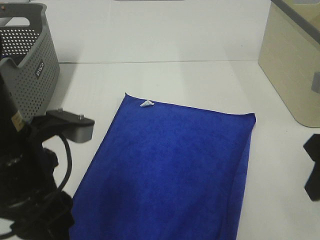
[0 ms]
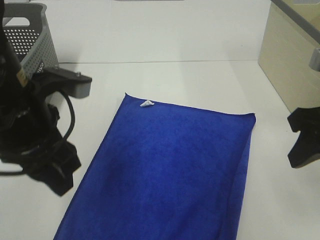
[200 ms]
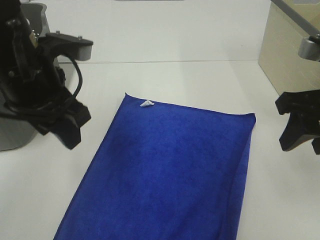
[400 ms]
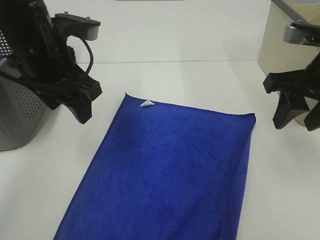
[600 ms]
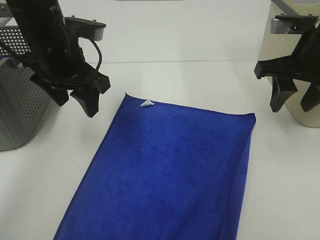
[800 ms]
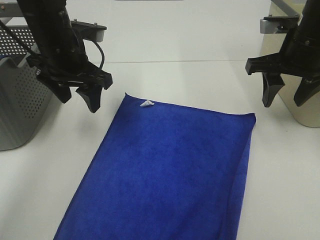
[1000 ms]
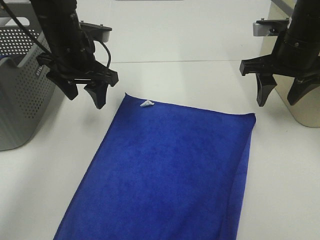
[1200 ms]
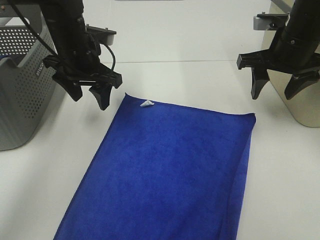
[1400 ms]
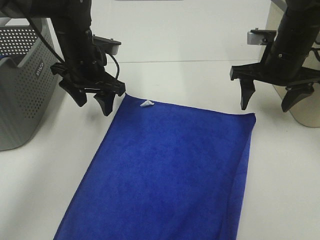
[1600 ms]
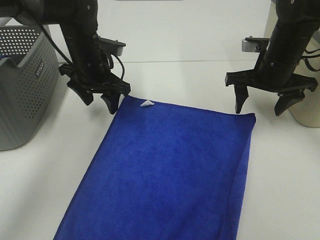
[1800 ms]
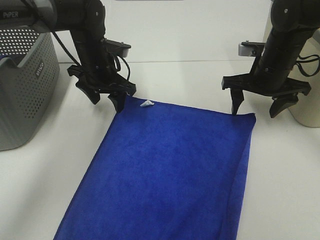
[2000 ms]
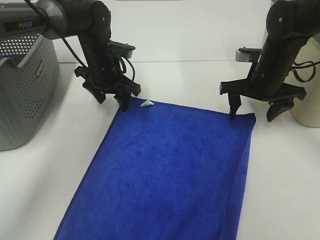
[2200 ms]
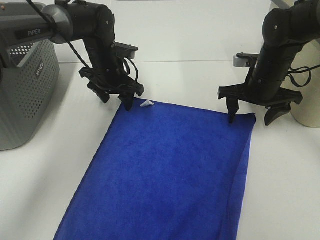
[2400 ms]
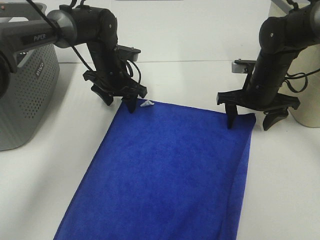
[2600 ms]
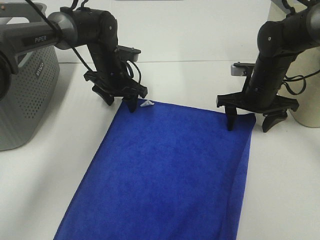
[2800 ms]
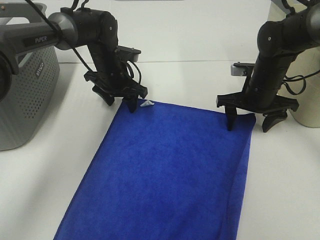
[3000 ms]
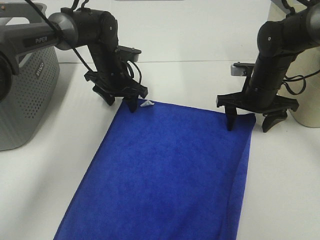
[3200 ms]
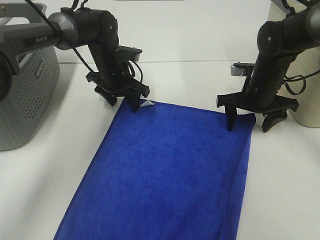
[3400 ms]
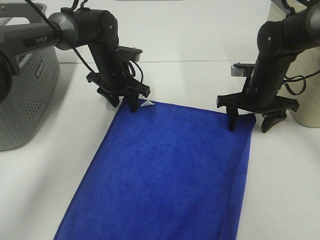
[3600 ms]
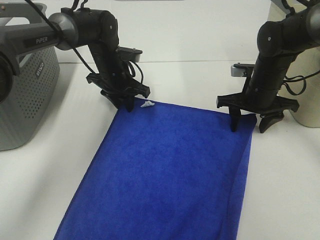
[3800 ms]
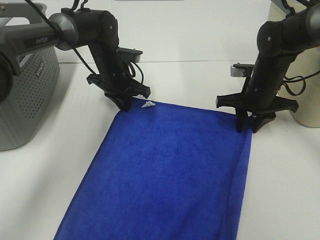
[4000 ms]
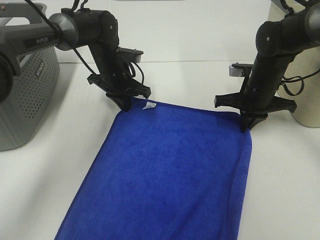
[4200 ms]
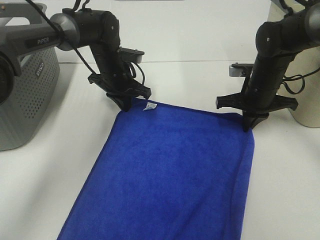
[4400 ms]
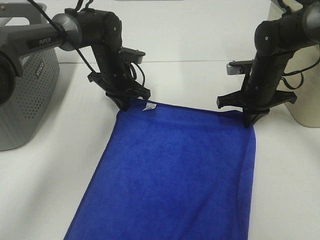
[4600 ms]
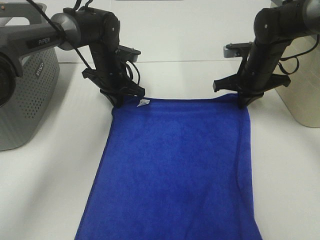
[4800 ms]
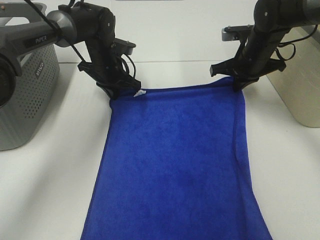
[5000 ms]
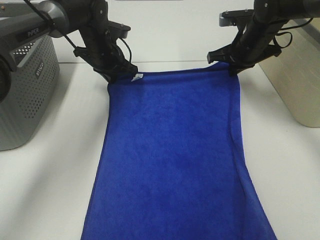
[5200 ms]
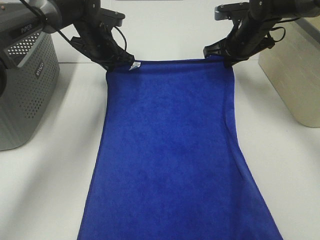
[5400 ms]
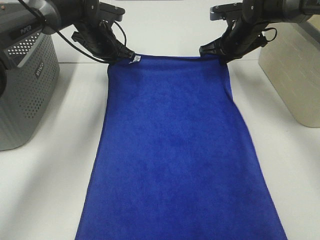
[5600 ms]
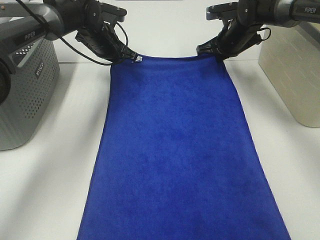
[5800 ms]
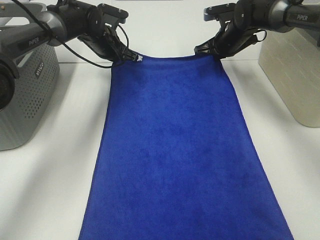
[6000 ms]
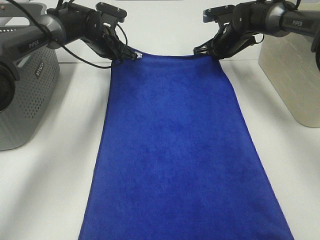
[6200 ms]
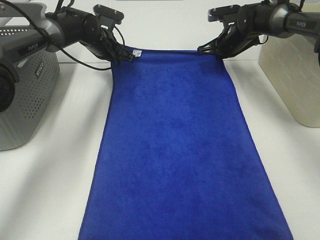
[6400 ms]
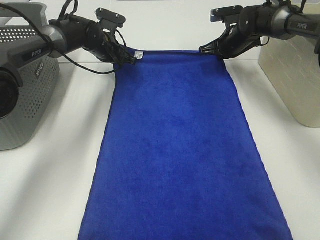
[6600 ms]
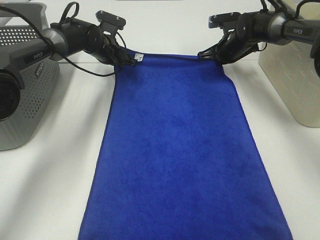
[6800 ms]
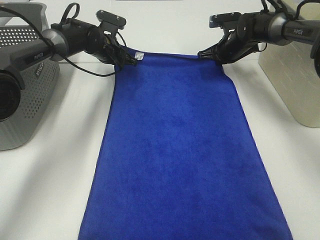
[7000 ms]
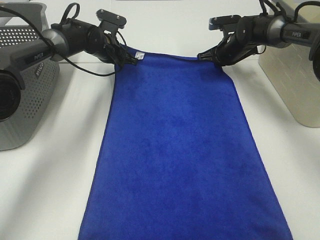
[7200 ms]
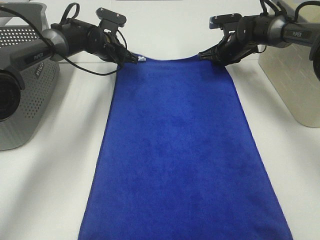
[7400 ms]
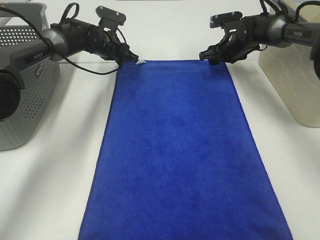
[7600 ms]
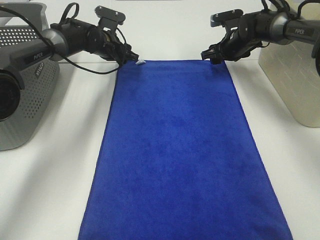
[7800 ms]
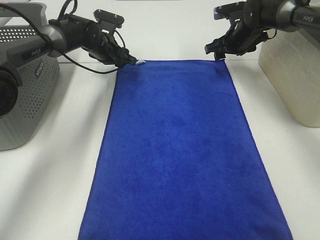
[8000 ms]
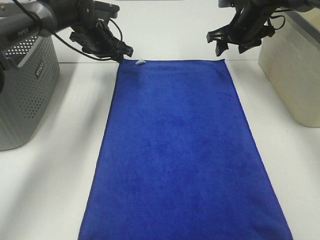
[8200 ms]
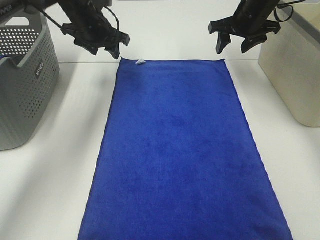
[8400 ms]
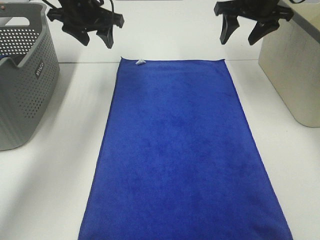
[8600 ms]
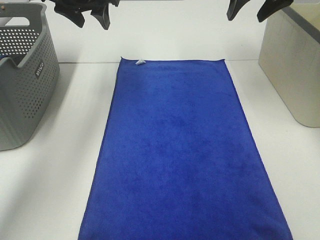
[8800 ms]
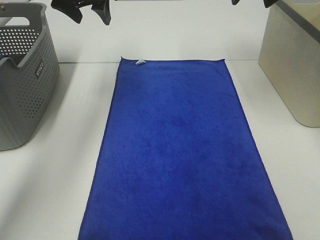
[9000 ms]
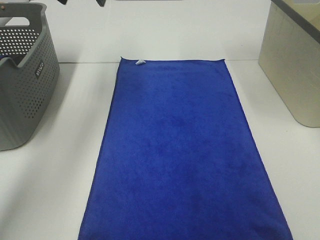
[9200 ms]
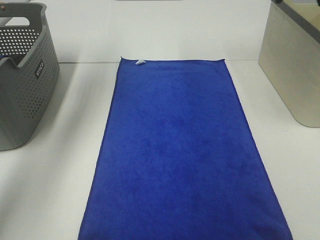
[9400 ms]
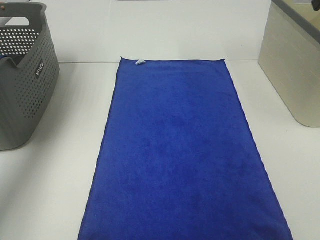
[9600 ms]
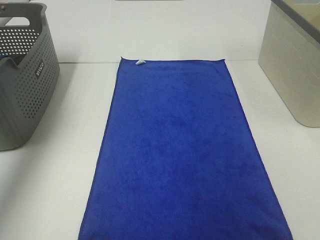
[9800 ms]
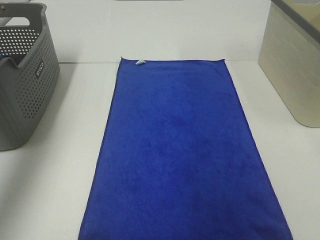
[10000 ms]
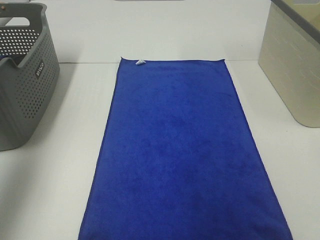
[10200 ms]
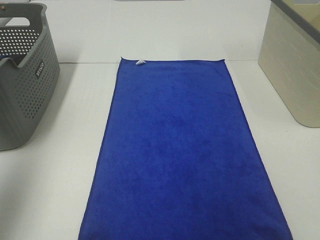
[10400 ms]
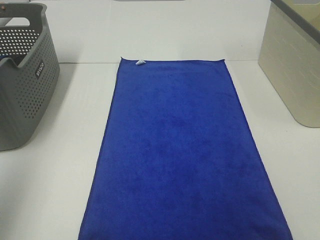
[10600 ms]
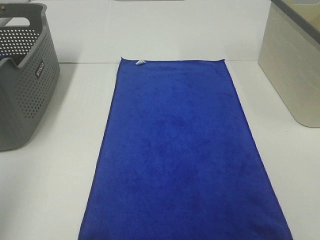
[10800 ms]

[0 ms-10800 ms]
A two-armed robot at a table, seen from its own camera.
Task of the whole recording: Remove the towel and place it.
0 ms to 1600 ms: Both grippers travel together forward, approximately 25 cm.
1600 ms to 3000 ms: The right gripper goes roughly 10 cm downward. The left gripper shifts approximately 10 cm downward and forward.
3000 ms to 4600 ms: The left gripper closes its fingers. Meanwhile the right gripper closes up.
4600 ms to 6200 ms: The left gripper shifts approximately 10 cm forward; the right gripper goes about 15 cm forward.
6200 ms to 7800 ms: The left gripper opens. The right gripper opens.
7800 ms to 9200 ms: The grippers both shift upward and backward by approximately 25 cm.
9200 ms to 10800 ms: The two grippers go roughly 35 cm backward.

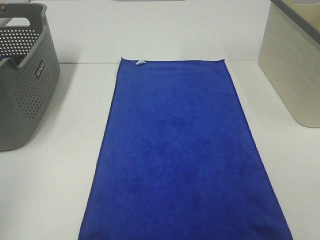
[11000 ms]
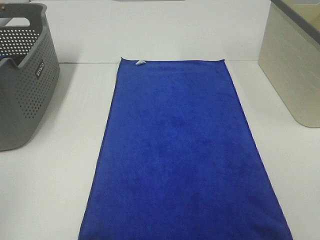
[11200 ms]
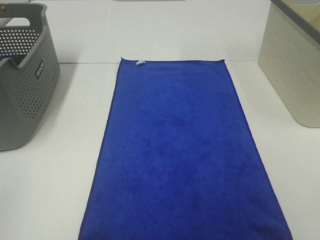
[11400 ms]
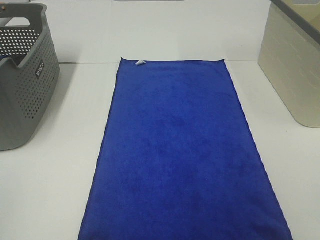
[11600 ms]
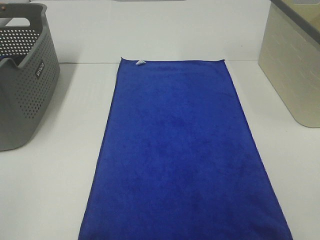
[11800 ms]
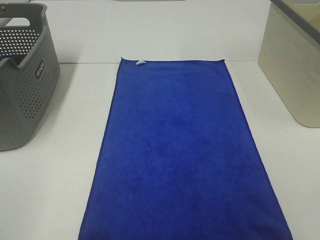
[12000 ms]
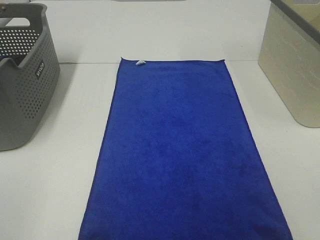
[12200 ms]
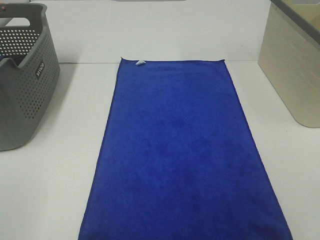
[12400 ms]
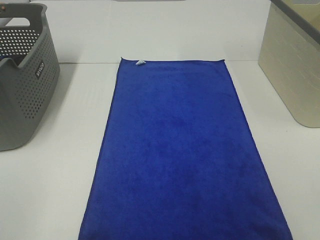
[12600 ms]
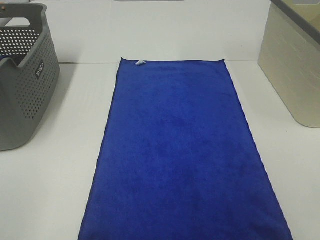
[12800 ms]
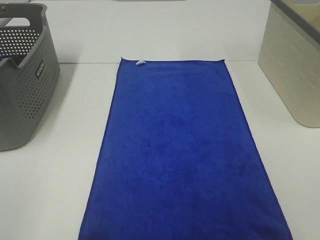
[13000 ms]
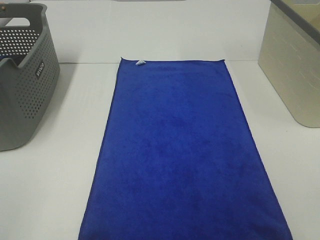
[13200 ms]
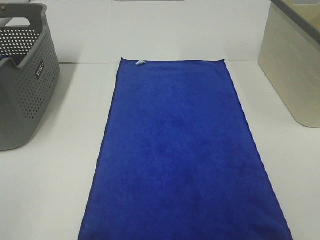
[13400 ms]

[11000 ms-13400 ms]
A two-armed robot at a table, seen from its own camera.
Task of the whole recording: Remove the towel and place it.
12200 ms to 13400 ms: Both grippers stay put.

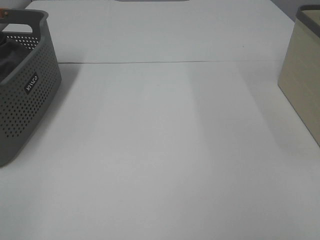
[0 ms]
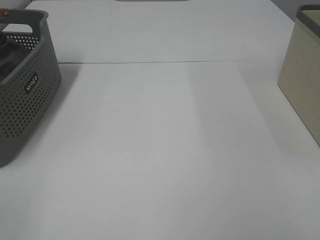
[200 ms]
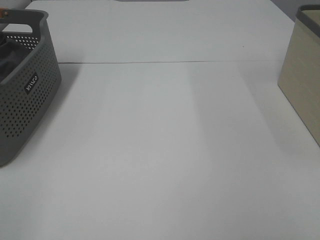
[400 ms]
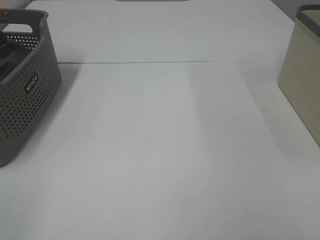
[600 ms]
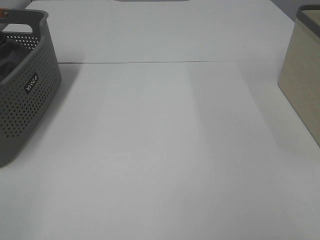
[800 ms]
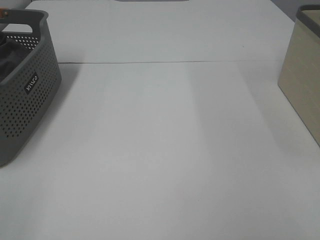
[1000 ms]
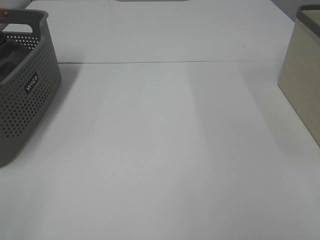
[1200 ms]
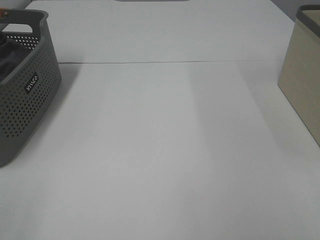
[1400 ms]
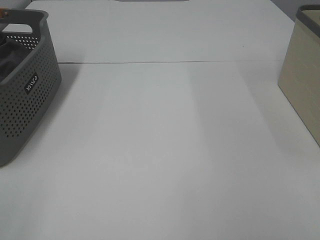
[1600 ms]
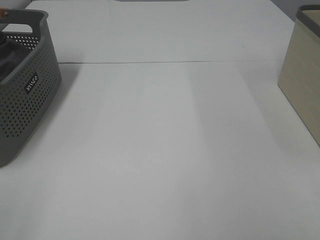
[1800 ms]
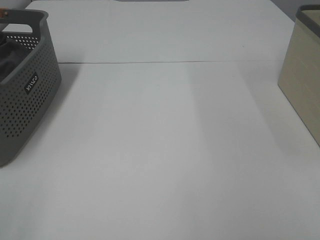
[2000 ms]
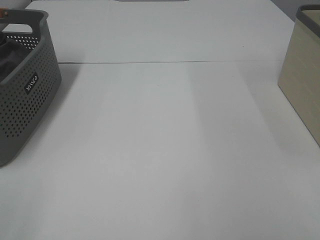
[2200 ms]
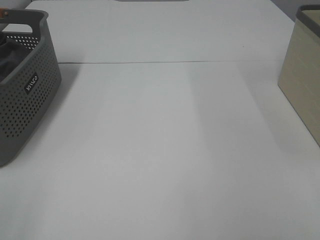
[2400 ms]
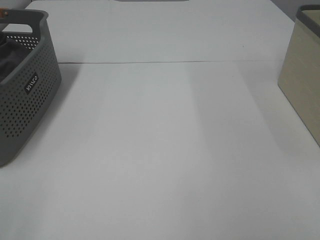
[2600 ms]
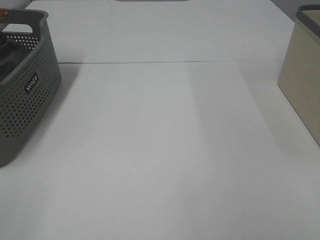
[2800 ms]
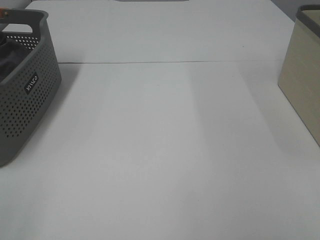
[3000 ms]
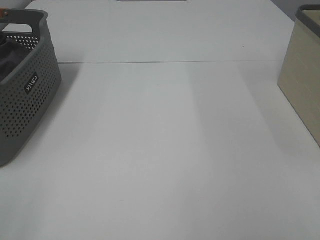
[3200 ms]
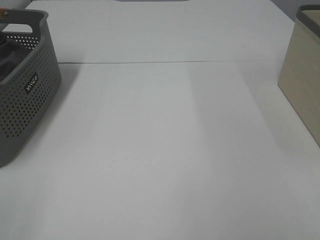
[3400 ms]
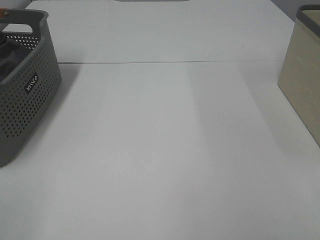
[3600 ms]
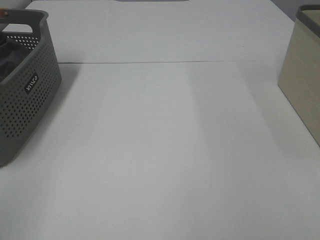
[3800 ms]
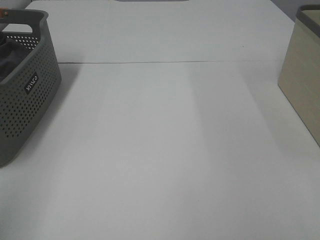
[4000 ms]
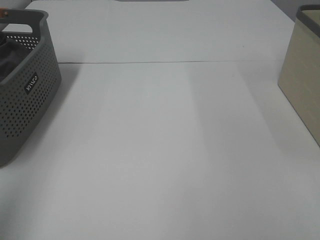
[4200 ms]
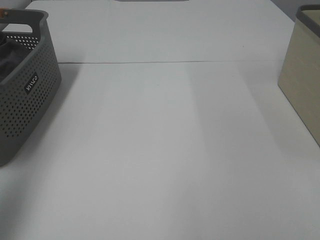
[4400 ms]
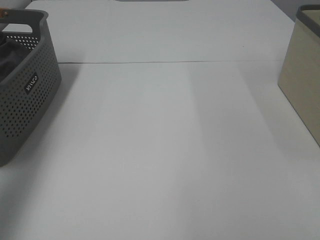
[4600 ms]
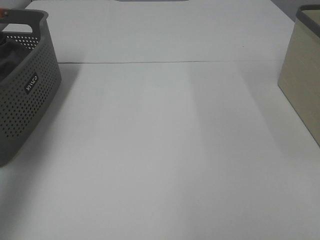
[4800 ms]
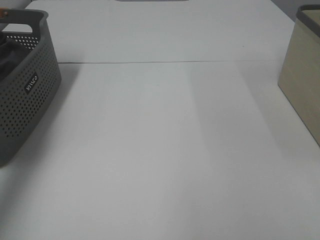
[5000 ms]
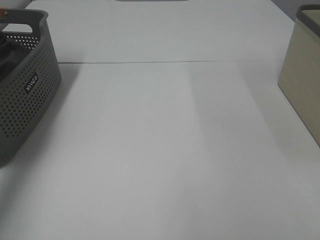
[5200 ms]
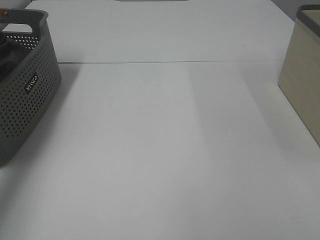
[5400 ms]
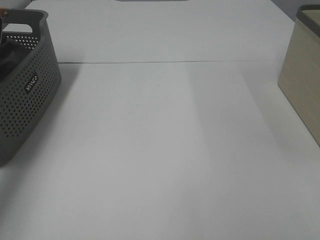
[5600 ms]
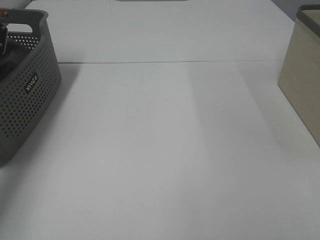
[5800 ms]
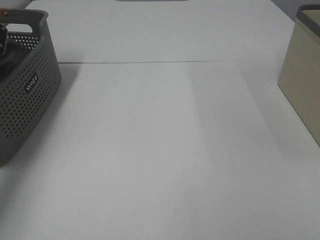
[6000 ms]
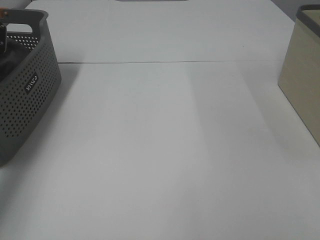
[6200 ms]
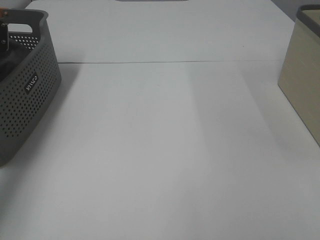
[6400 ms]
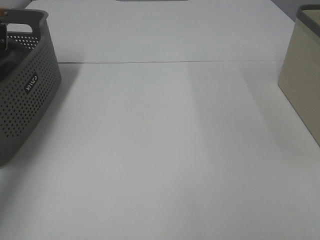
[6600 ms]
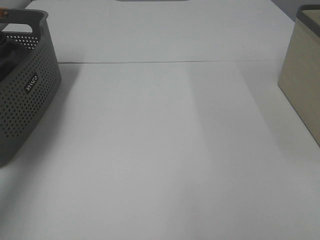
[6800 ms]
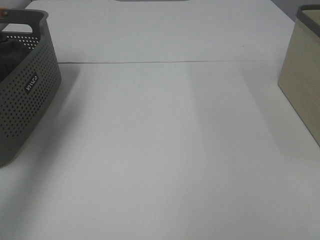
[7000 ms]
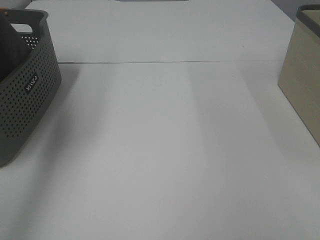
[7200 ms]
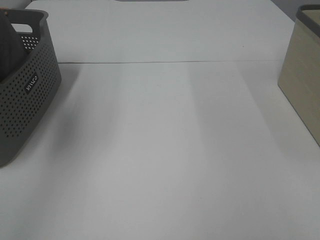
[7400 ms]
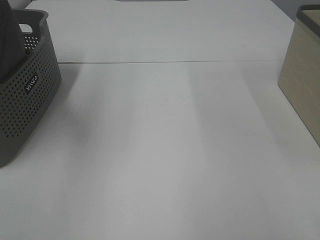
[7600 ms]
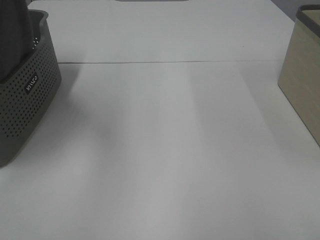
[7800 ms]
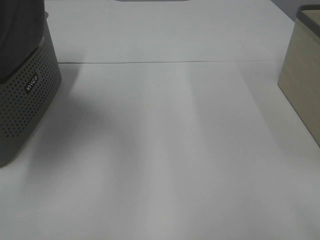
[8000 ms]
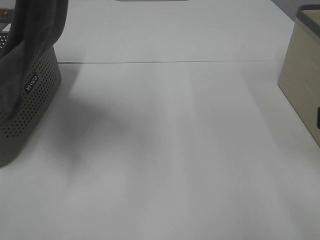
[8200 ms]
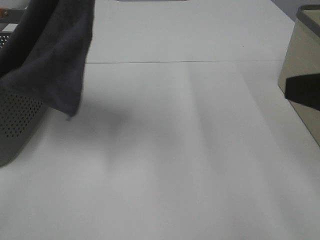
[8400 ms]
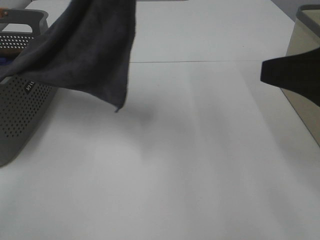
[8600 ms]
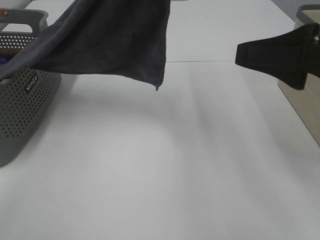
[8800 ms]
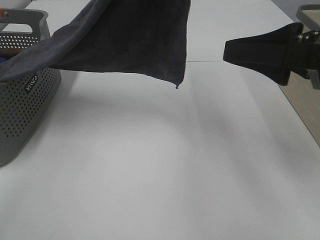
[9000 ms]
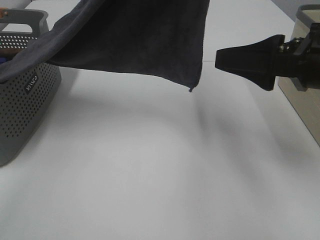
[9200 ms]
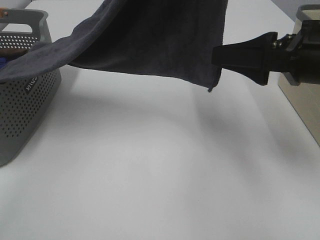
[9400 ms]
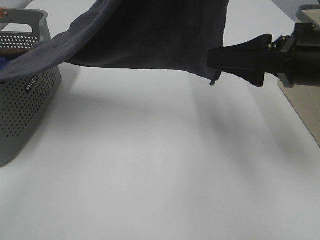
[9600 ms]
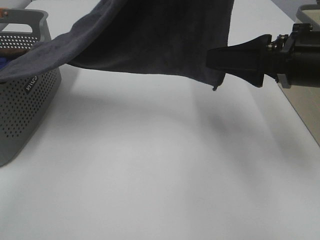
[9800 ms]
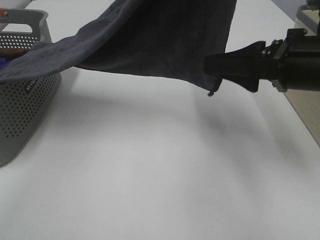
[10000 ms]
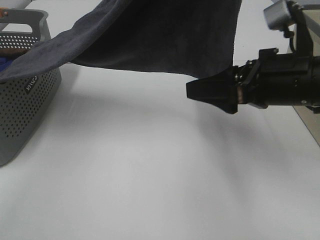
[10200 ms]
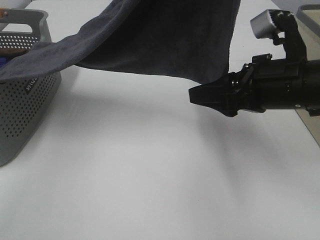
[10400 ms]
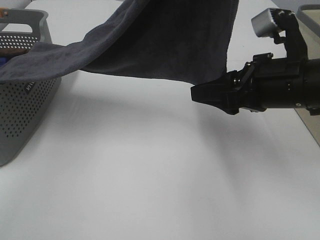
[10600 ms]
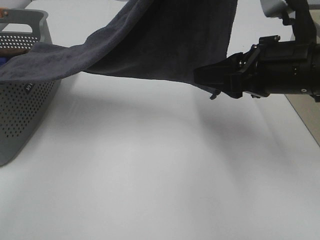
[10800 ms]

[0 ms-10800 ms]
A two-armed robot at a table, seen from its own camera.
Task of the whole recording: Remove the towel and place it.
0 ms to 3000 ms: Both grippers stay put.
3000 ms to 4600 ms: The left gripper travels forward and upward by some 25 cm.
4600 ms to 6200 ms: The left gripper shifts approximately 25 cm forward and downward, and closes.
6200 ms to 7800 ms: The left gripper moves upward, to the right and backward, some 40 cm.
7800 ms to 9200 ms: The right gripper goes about 20 cm forward. Meanwhile the left gripper shifts some 15 cm to the right.
9200 ms to 10800 ms: The right gripper closes its fingers.
